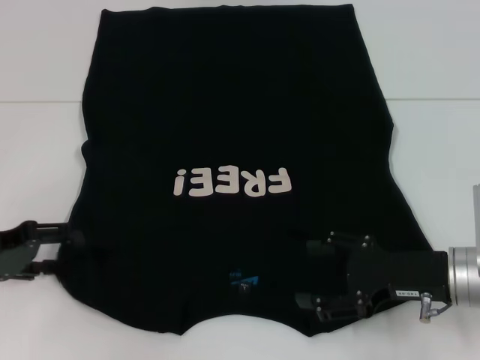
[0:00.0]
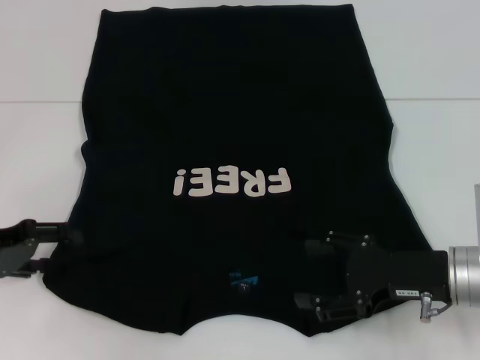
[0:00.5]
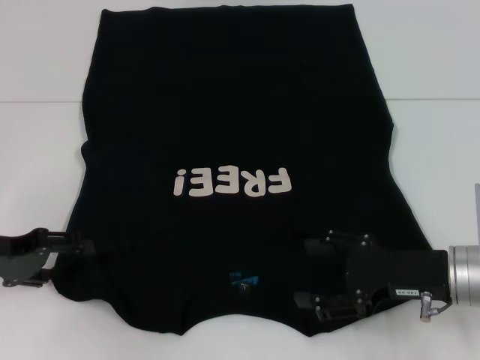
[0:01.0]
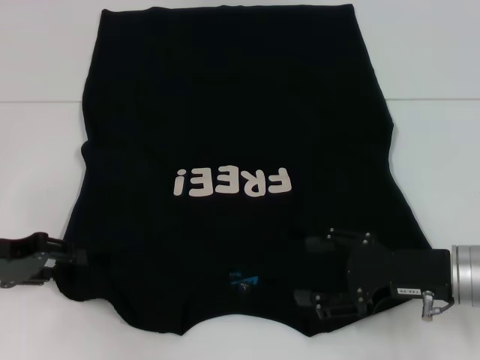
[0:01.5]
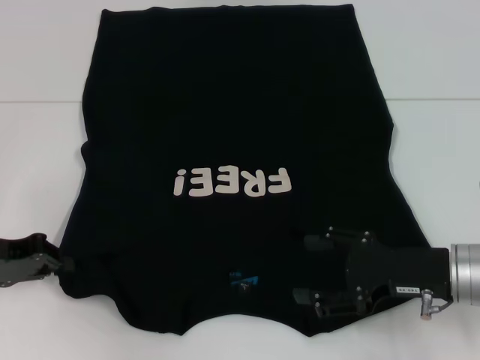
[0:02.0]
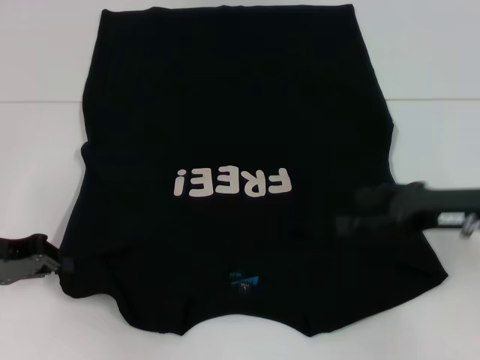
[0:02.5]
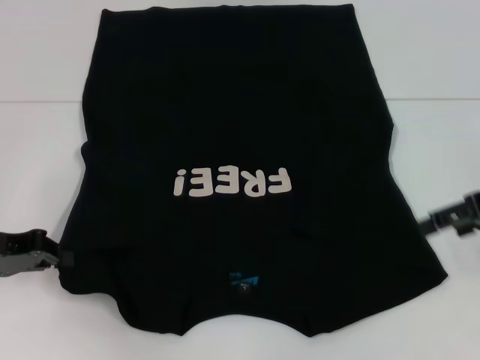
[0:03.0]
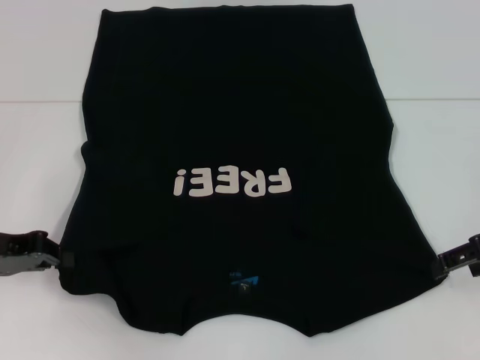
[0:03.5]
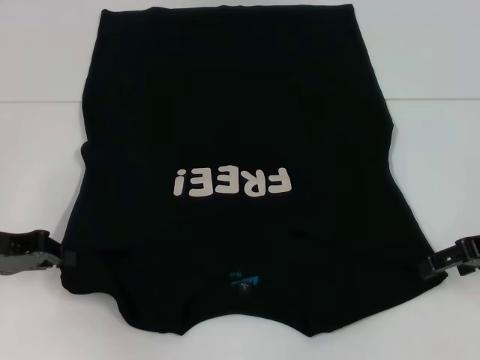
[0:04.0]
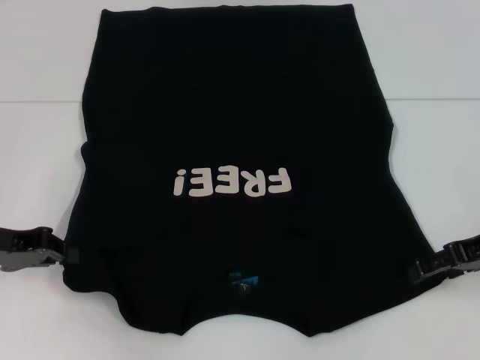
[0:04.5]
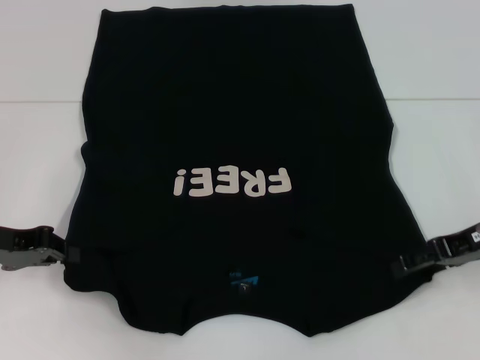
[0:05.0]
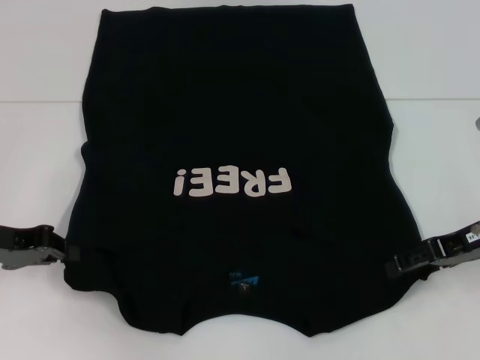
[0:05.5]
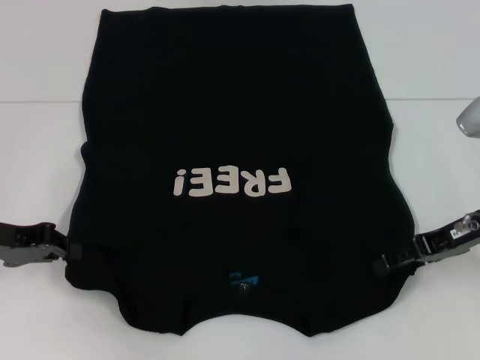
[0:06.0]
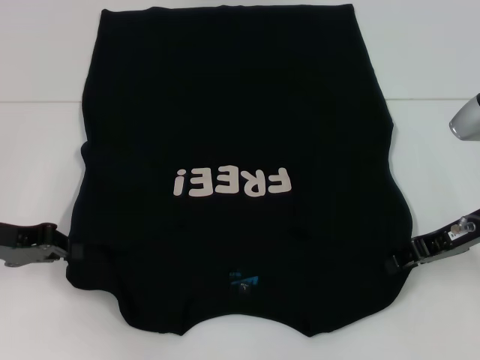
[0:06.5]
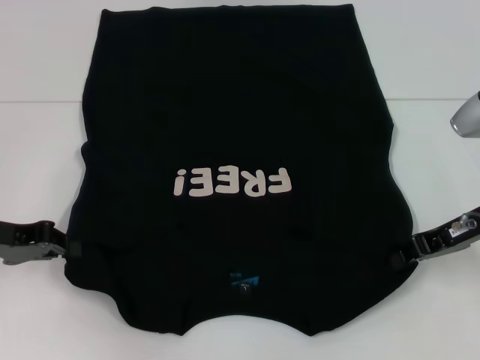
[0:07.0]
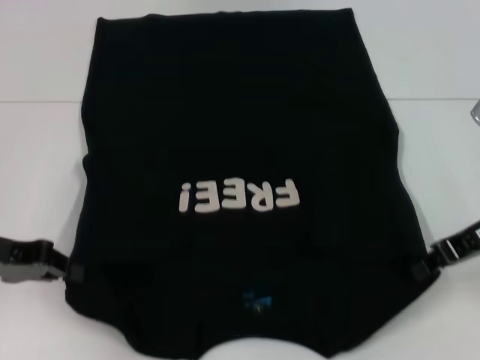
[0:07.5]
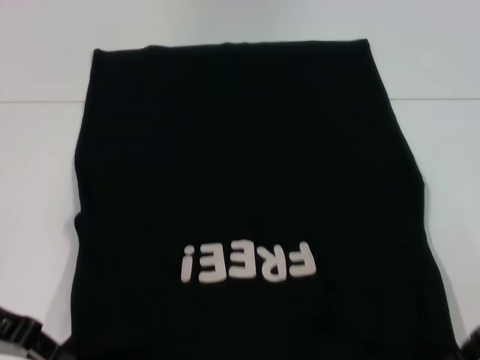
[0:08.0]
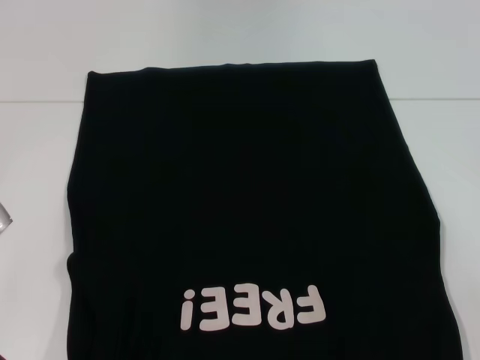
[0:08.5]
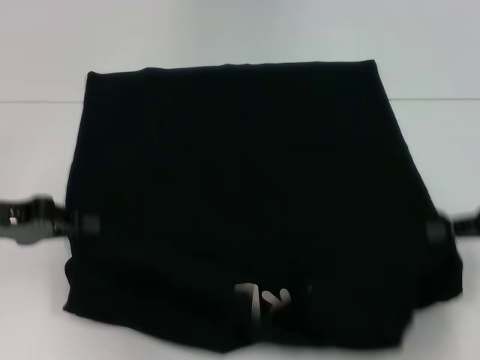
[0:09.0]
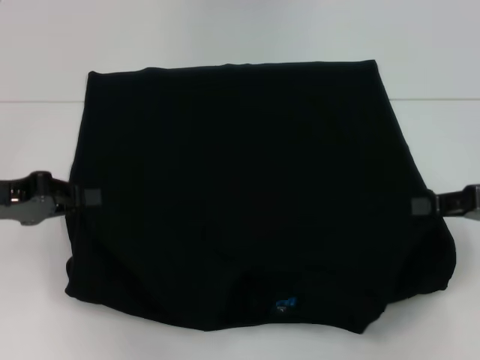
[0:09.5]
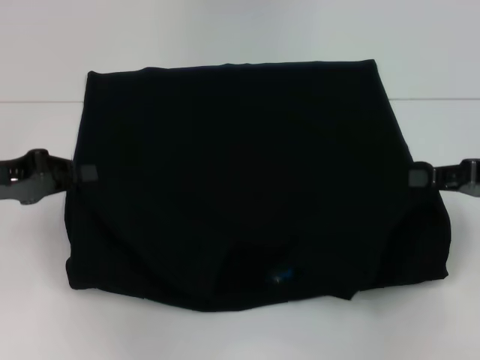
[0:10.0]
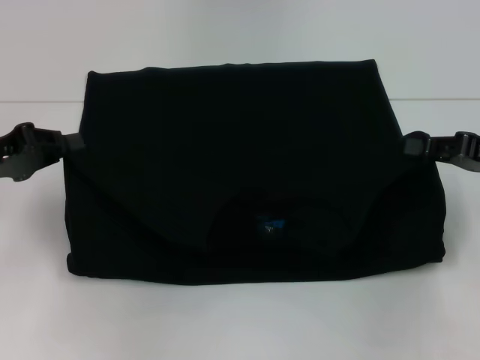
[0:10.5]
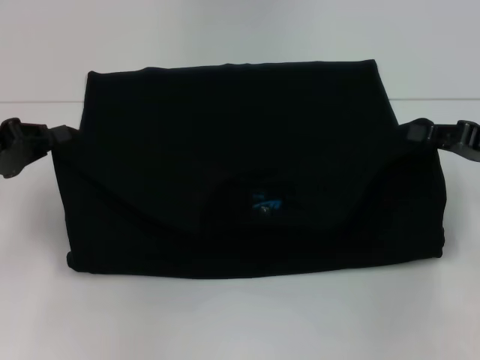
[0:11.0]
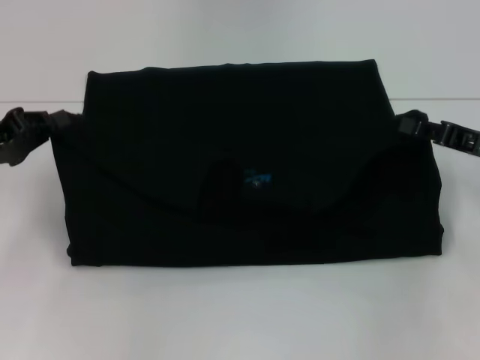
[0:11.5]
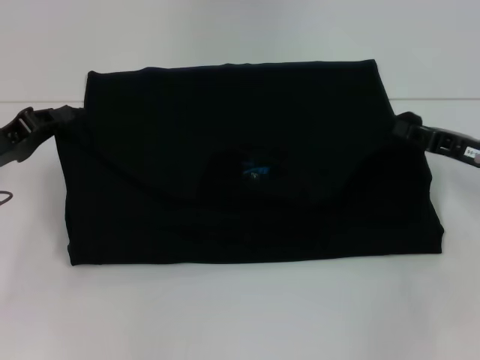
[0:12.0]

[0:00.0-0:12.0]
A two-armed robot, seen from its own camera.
Step, 2.0 to 6.5 s: Grab the bottom right corner with your right hand.
0.0 to 2.0 s: The left gripper closes its fingers.
2.0 to 4.0 s: The right gripper shifts some 10 cm to the right, upward and forward.
4.0 to 6.0 s: There are only small adjustments of the grippers.
6.0 to 8.0 s: The right gripper moves some 5 cm, and closes its fingers.
8.0 to 10.0 s: The right gripper ends up roughly 5 cm from where it was.
10.0 to 12.0 s: The right gripper ends up some 5 cm from where it was.

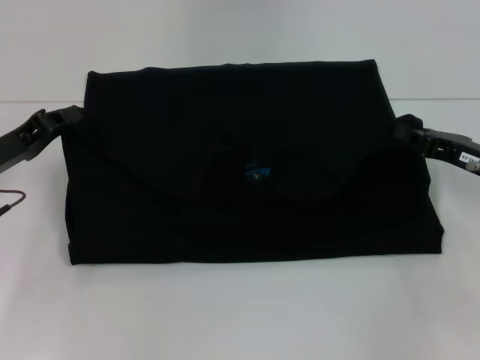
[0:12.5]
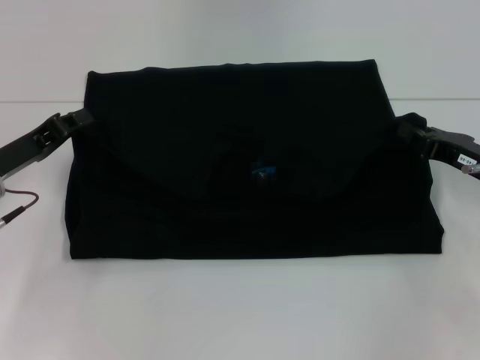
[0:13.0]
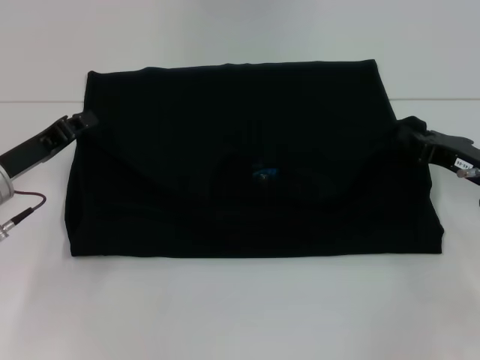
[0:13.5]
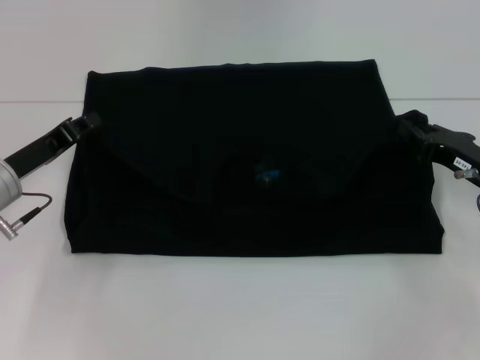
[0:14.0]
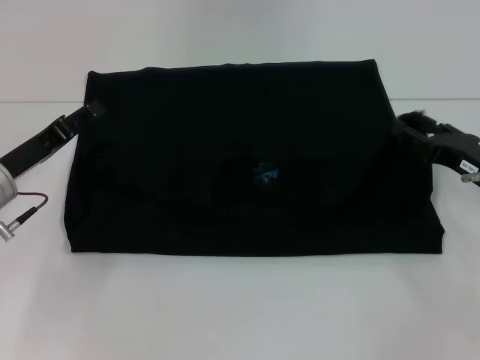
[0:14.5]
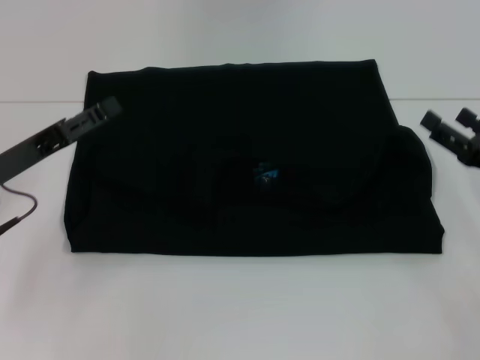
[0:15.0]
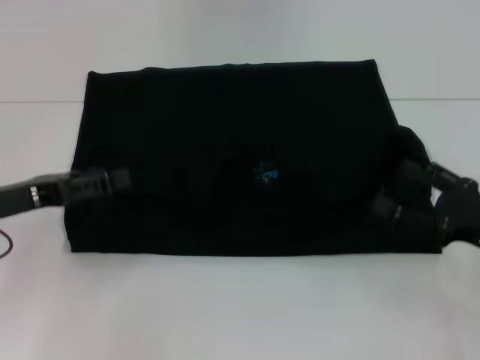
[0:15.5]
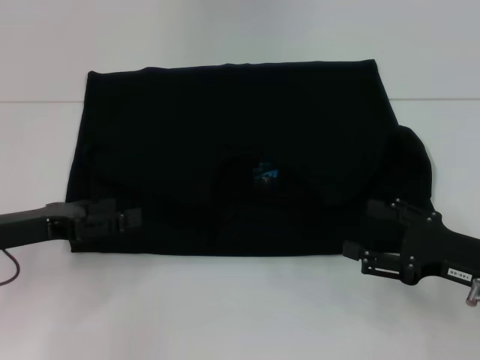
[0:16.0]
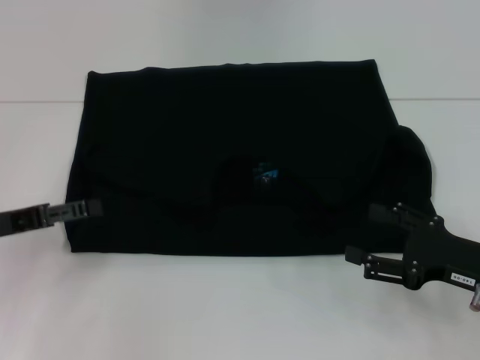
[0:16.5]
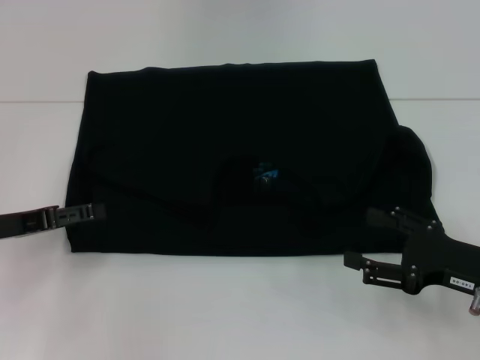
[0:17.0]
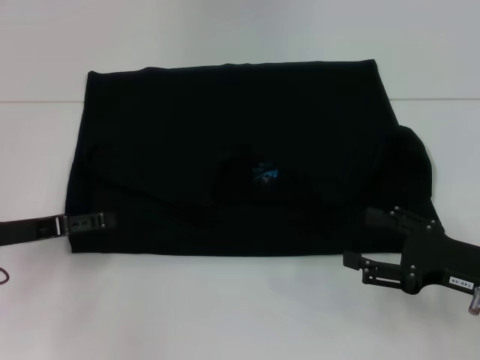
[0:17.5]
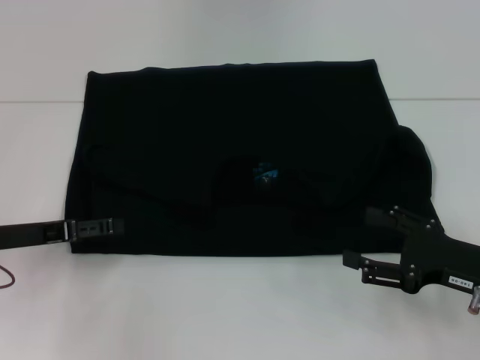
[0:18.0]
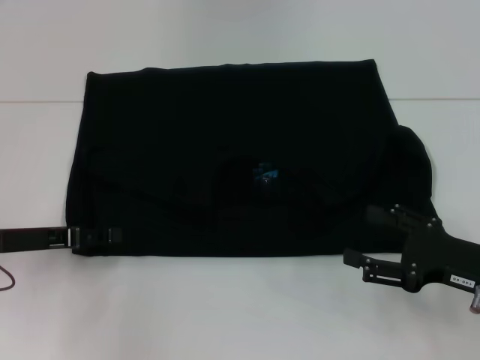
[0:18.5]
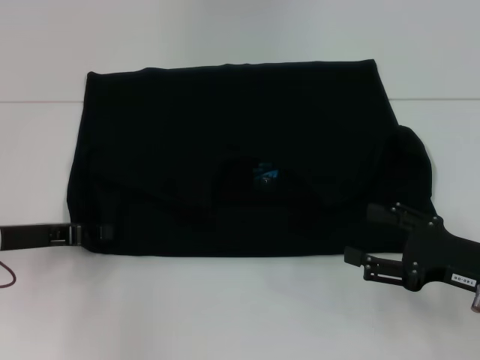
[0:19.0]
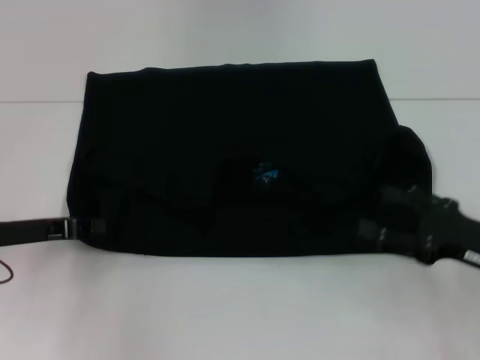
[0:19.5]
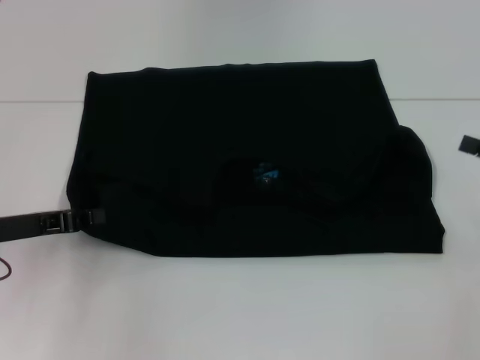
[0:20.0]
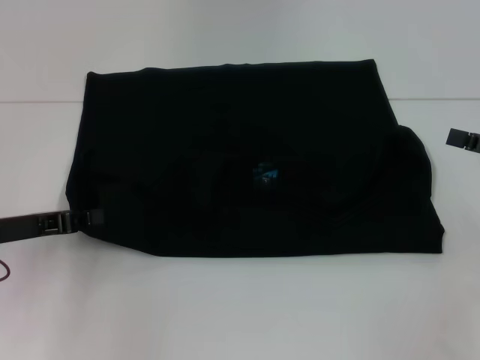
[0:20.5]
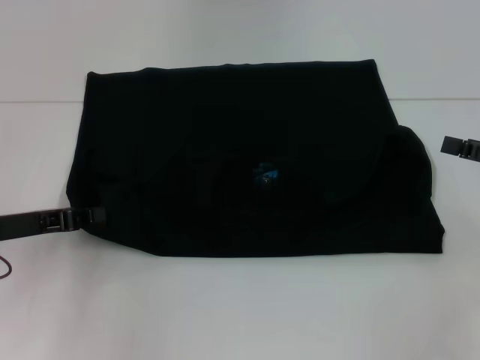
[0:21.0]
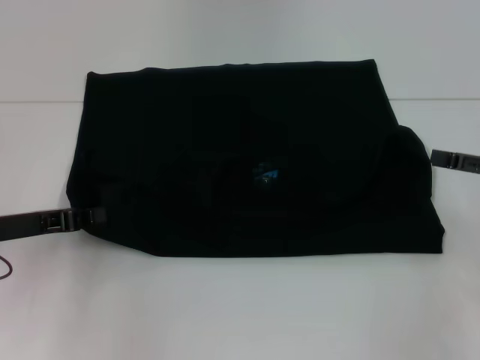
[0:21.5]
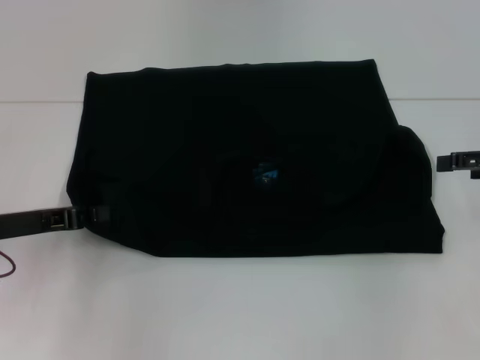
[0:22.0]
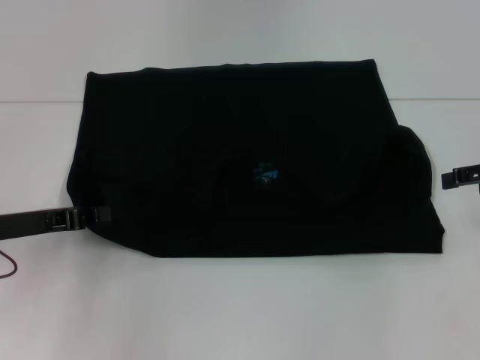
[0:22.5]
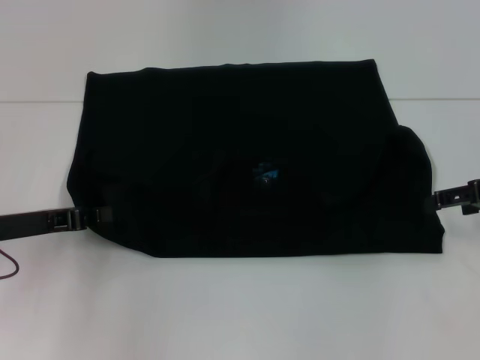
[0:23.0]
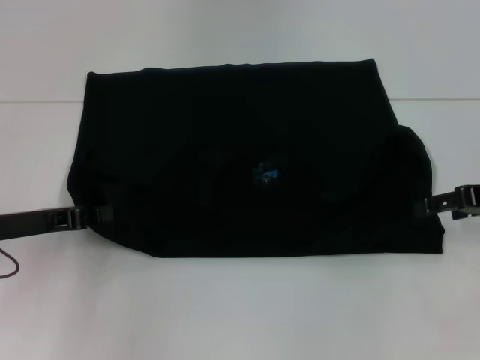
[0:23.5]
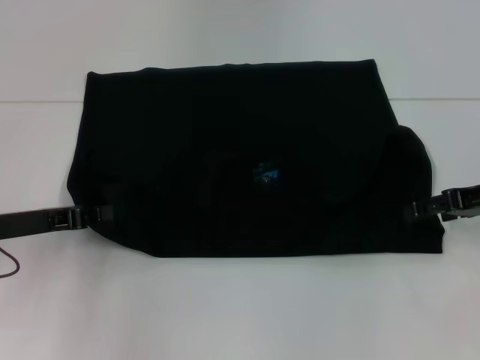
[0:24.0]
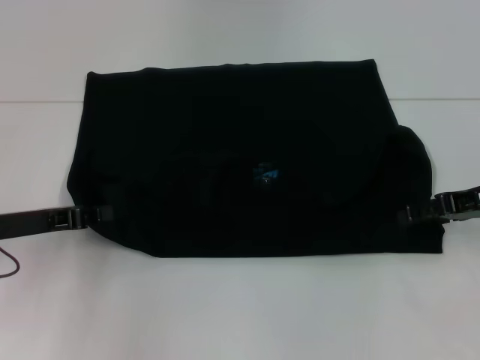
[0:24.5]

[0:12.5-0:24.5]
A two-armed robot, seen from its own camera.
Step, 12.5 to 14.5 s: Fold the clothes with your left hand.
Step, 12.5 to 14.5 s: Fold the clothes with your right hand.
12.5 to 14.5 s: The left gripper opens its fingers, while the right gripper opens up.
14.5 to 16.5 s: The right gripper is displaced backward by approximately 10 cm, and opens its fingers. The left gripper ends up approximately 5 cm from where it was, and opens.
16.5 to 18.5 s: There are only small adjustments of the grippers.
18.5 to 20.5 s: The left gripper closes up. The right gripper heads to the right, upward and forward, covering roughly 15 cm.
20.5 to 22.5 s: The right gripper shifts by some 5 cm.
22.5 to 24.5 s: The right gripper changes place by approximately 5 cm.

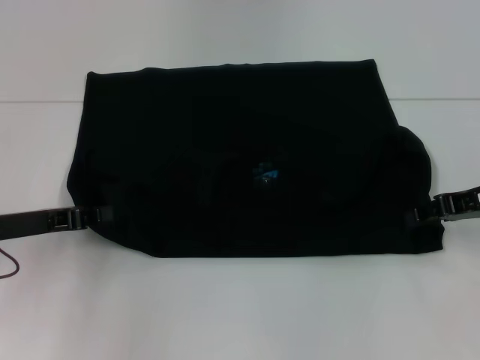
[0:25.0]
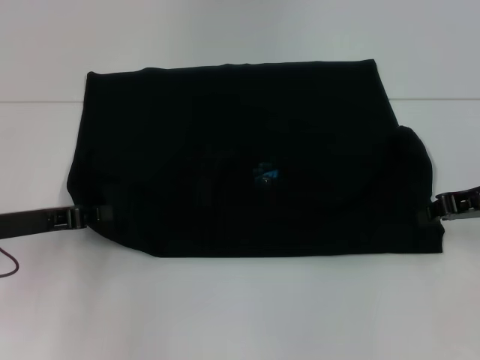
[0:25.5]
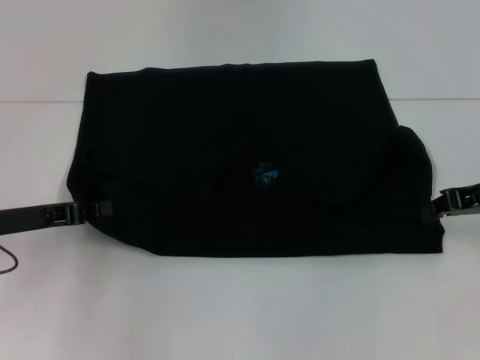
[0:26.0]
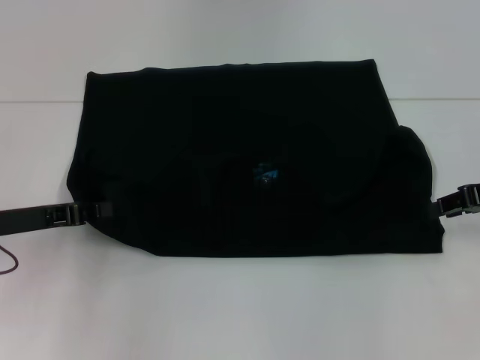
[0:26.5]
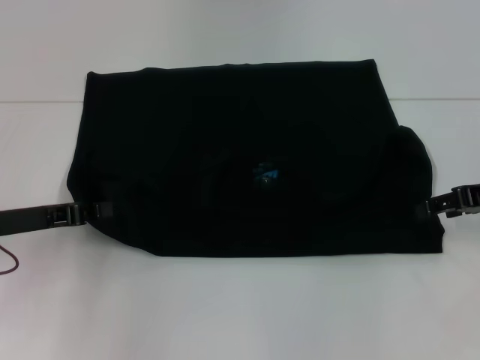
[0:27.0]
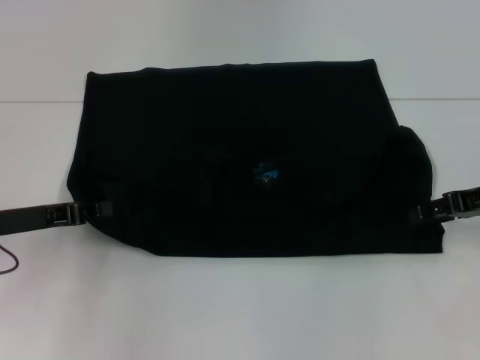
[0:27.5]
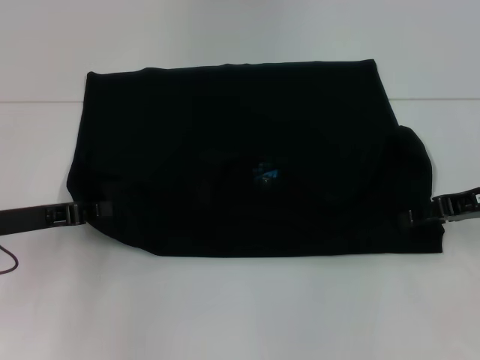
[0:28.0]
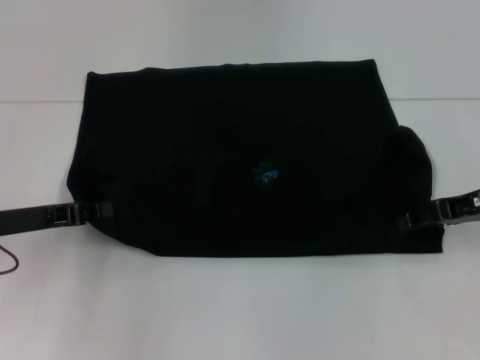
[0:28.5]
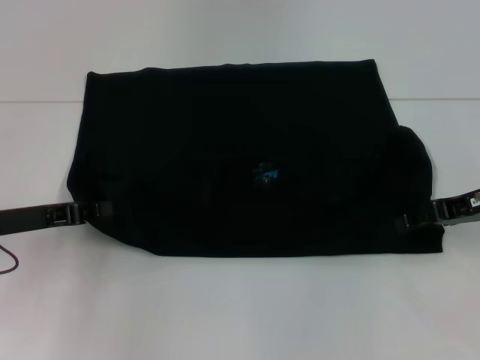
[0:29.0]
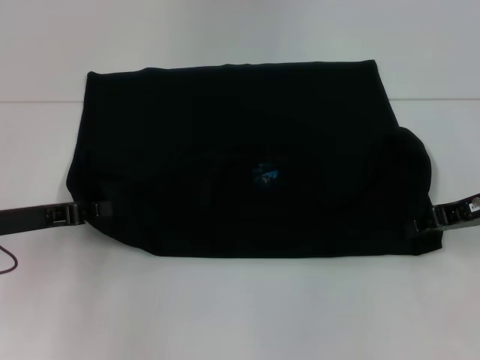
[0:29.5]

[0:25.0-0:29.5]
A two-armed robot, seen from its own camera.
27.0 to 29.5 s: The grippers make only small movements.
